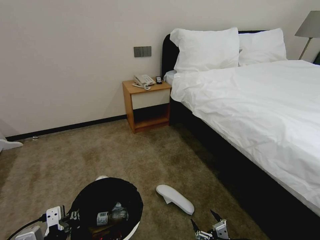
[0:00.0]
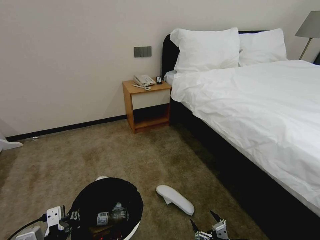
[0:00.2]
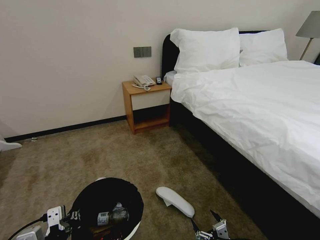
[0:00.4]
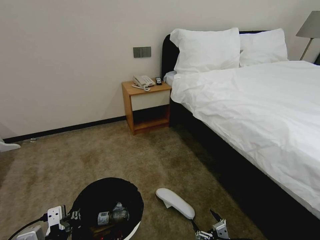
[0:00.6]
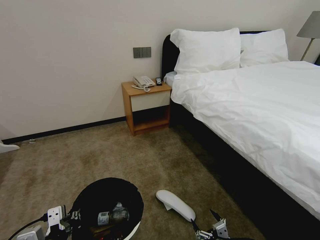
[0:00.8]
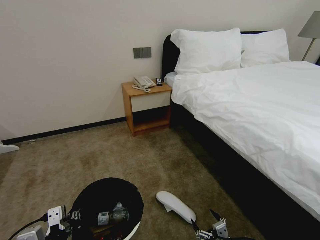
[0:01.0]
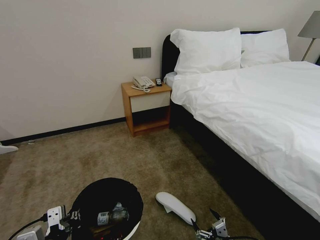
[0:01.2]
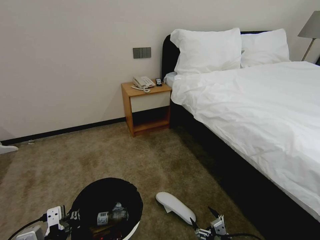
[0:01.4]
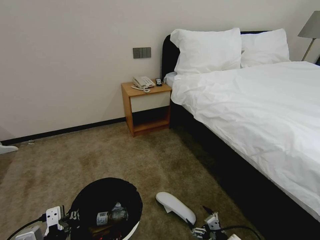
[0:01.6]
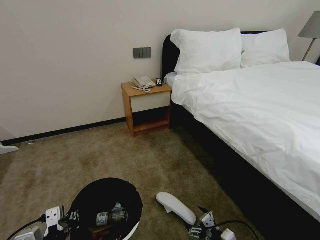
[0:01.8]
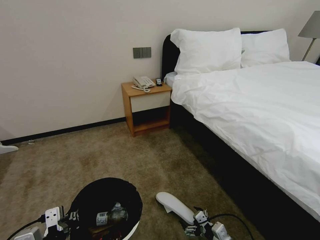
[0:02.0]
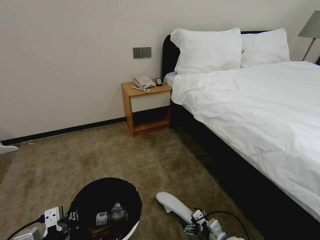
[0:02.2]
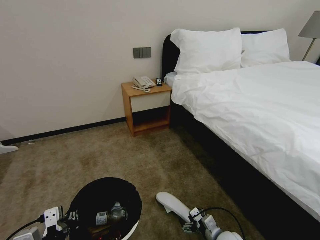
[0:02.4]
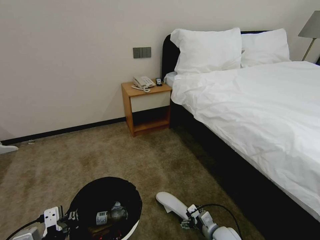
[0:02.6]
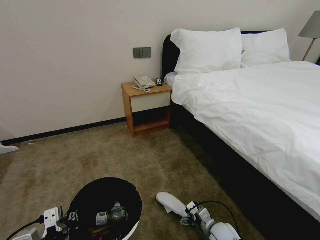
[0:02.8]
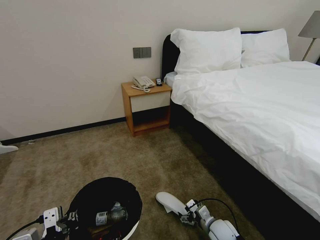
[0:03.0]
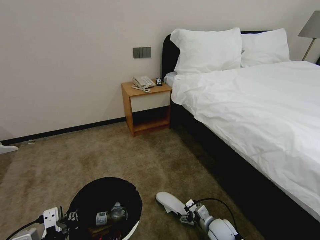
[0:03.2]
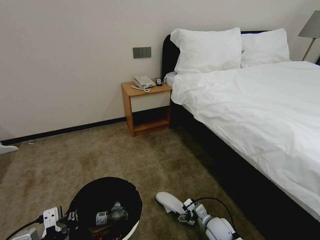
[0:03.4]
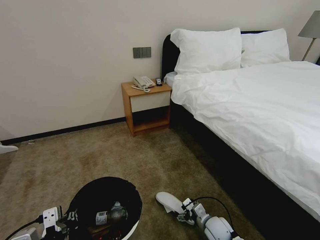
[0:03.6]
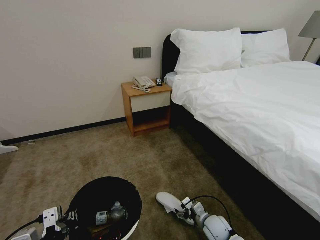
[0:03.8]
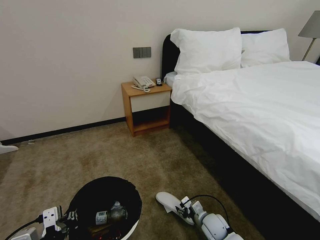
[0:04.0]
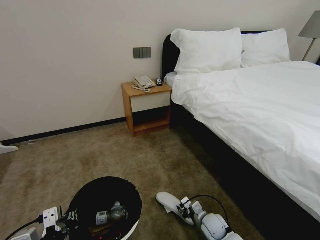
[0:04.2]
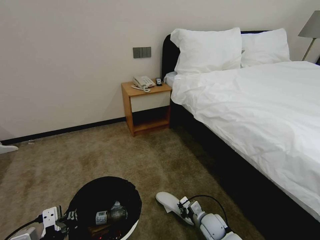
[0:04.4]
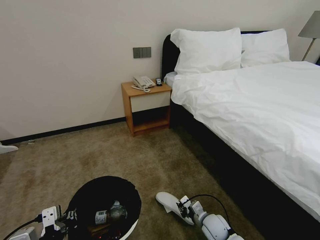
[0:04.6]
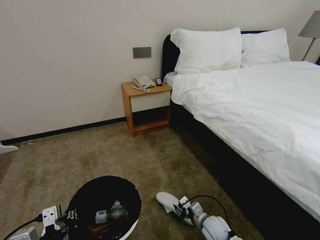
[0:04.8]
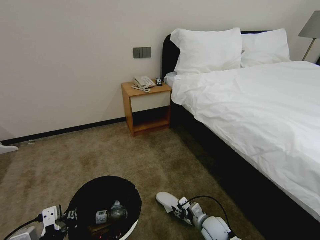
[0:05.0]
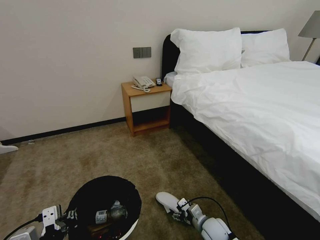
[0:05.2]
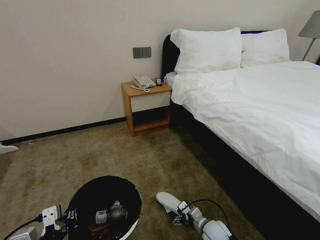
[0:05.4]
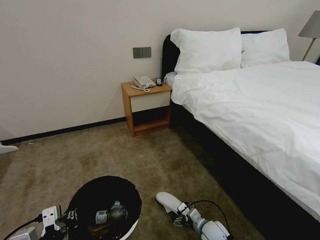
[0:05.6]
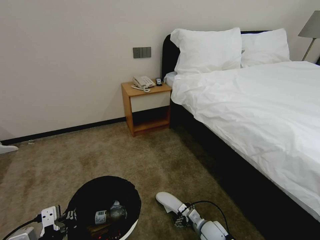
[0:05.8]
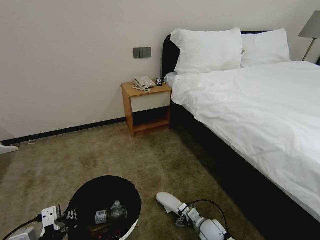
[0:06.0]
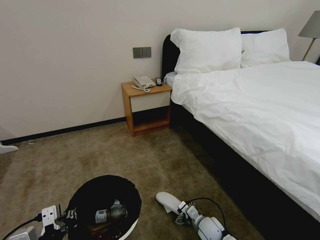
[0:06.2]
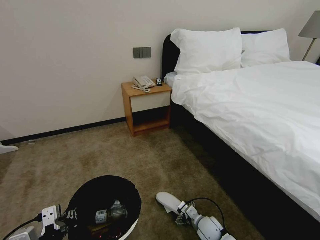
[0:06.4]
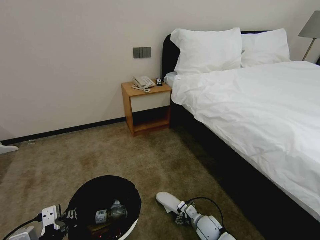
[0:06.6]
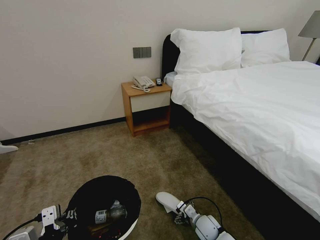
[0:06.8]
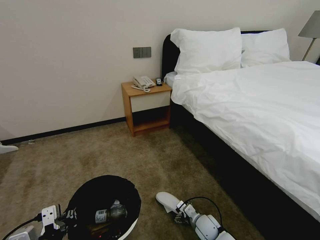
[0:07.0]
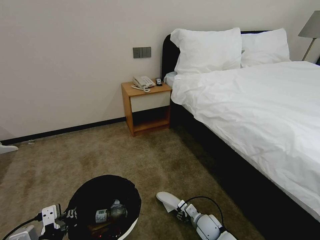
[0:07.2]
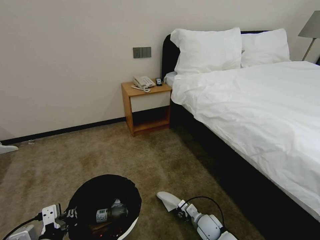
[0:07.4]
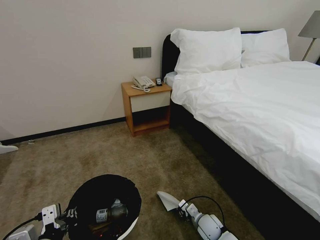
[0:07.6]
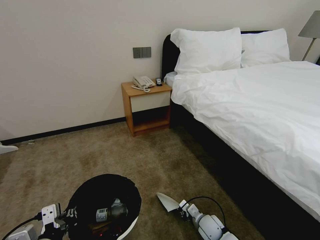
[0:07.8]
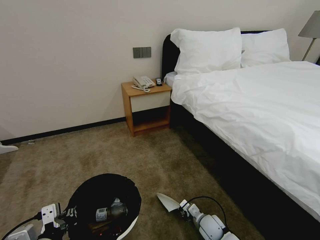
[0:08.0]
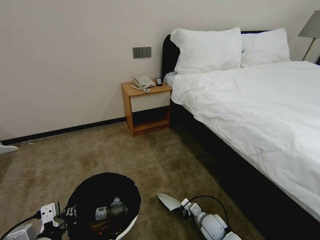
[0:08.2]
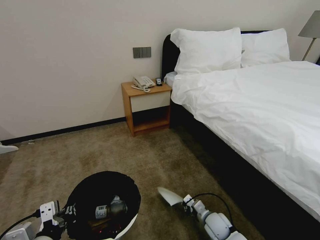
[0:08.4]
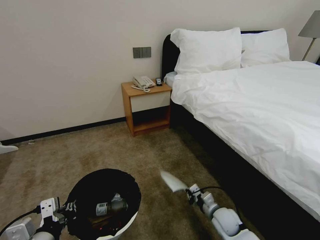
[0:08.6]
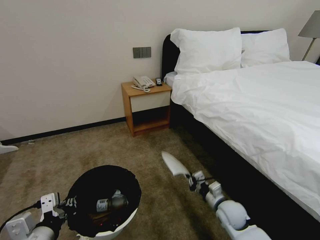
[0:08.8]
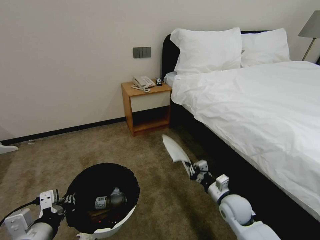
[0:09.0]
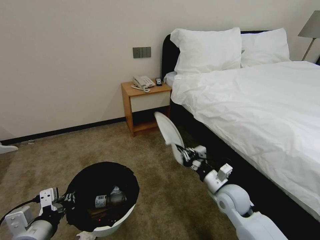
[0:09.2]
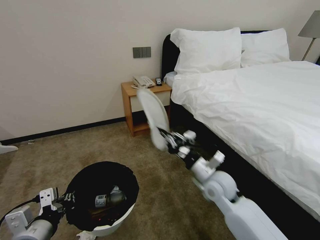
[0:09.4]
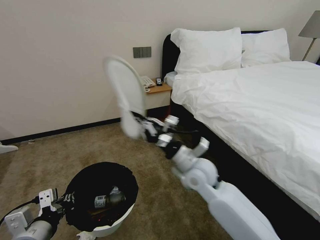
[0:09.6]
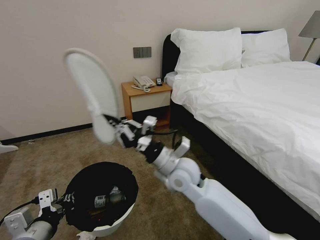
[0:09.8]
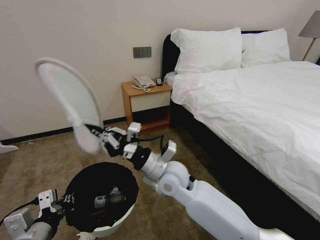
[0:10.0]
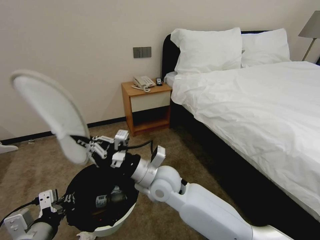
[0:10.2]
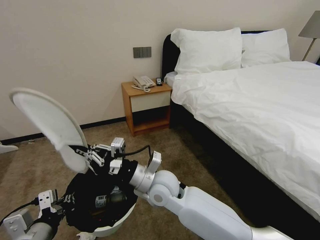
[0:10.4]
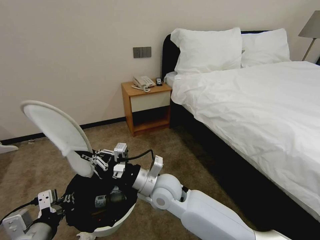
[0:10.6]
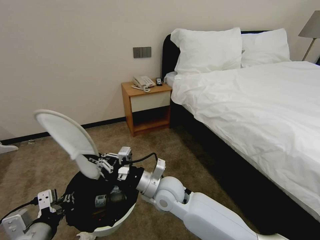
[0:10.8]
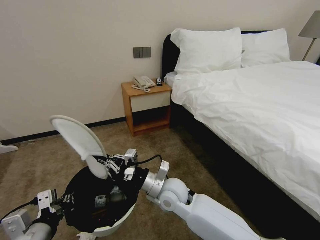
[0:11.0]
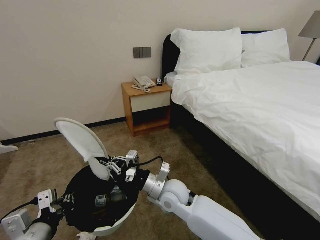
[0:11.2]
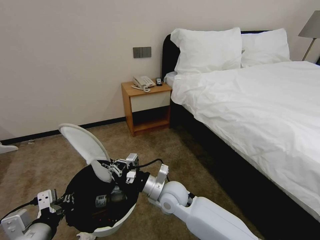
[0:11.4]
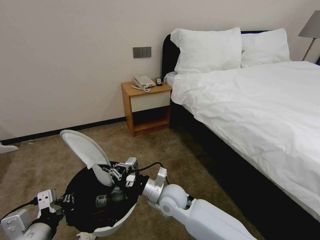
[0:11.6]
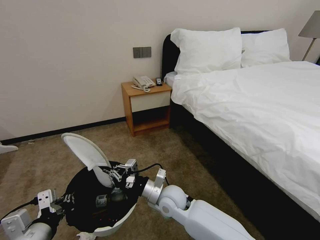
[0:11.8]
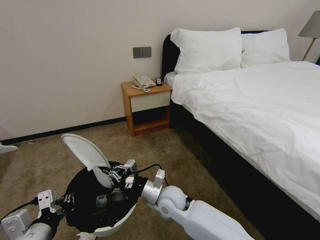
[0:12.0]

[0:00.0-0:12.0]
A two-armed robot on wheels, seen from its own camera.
Task of the whole recording: Pick up the trash bin, then pick up the garbage from the floor and place it into the trash bin.
0:00.0 to 0:01.6: The grippers make only small movements.
0:01.6 to 0:03.0: The right gripper travels forward by roughly 15 cm.
0:03.0 to 0:04.4: The right gripper closes.
0:04.4 to 0:06.0: The right gripper opens.
0:06.0 to 0:07.6: The right gripper closes up.
0:07.6 to 0:09.0: The right gripper is displaced upward by approximately 15 cm.
0:09.0 to 0:10.4: The right gripper moves to the left and upward, roughly 30 cm.
0:10.4 to 0:12.0: The right gripper moves downward, about 10 cm.

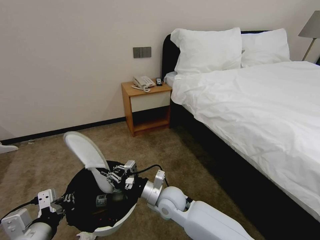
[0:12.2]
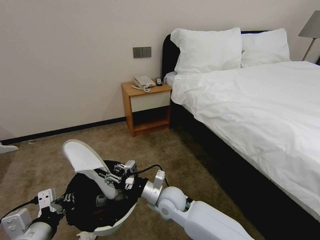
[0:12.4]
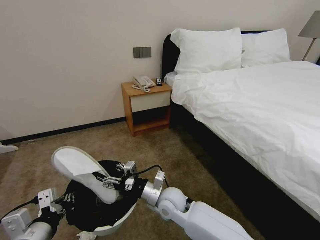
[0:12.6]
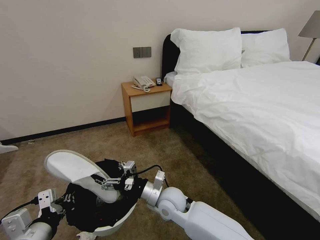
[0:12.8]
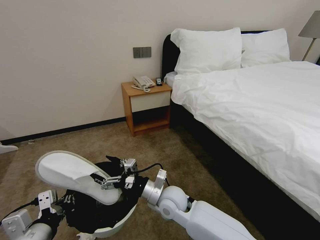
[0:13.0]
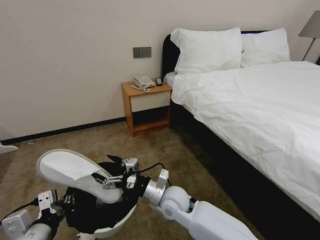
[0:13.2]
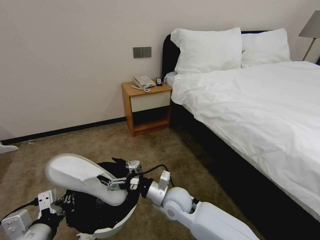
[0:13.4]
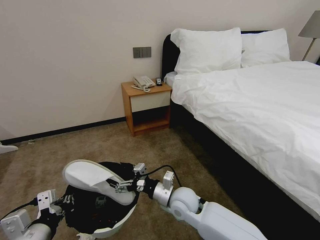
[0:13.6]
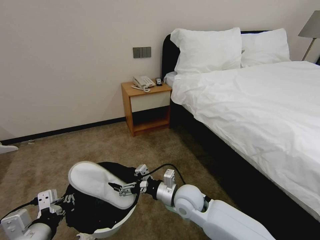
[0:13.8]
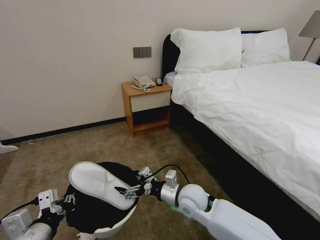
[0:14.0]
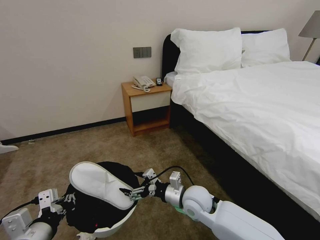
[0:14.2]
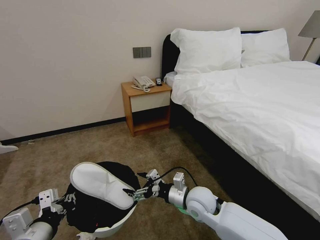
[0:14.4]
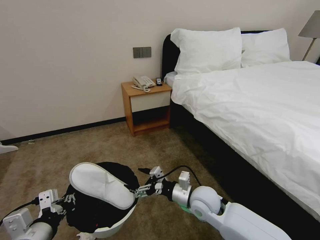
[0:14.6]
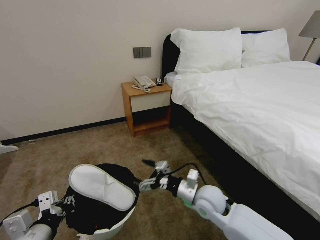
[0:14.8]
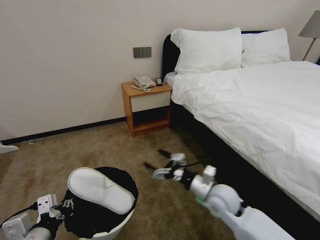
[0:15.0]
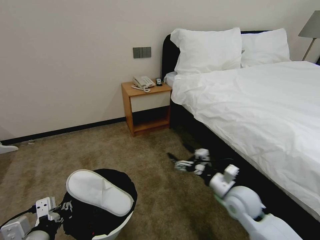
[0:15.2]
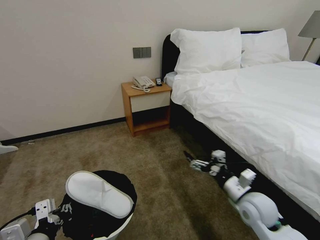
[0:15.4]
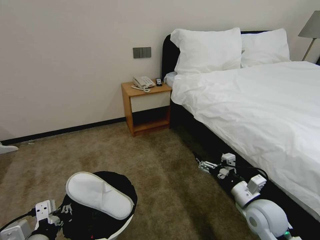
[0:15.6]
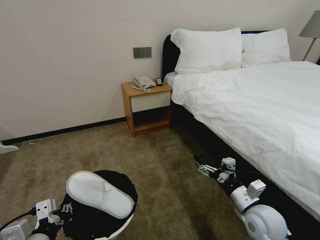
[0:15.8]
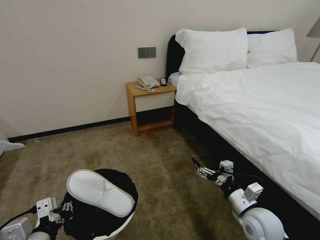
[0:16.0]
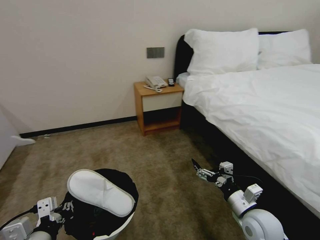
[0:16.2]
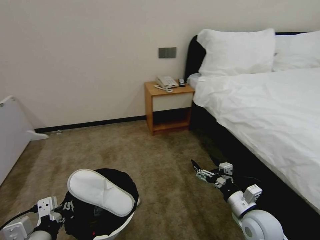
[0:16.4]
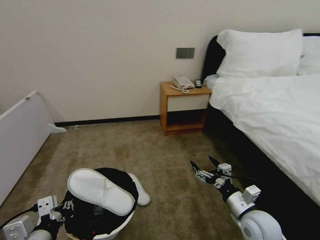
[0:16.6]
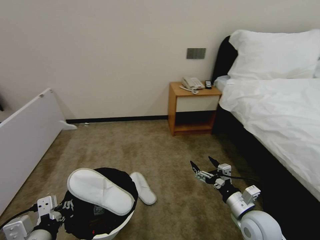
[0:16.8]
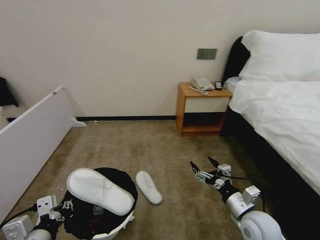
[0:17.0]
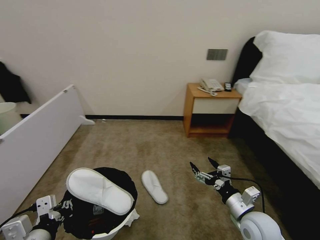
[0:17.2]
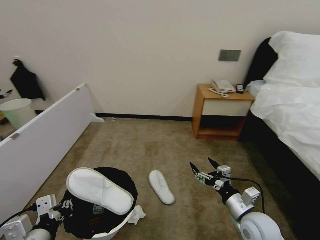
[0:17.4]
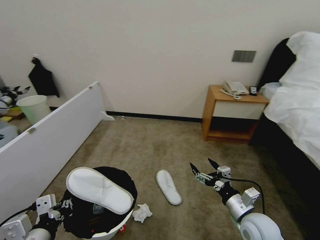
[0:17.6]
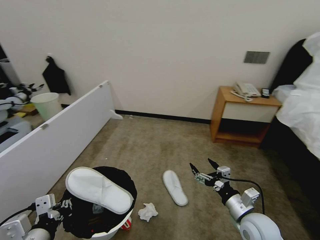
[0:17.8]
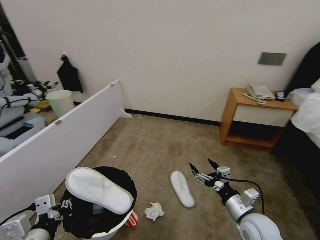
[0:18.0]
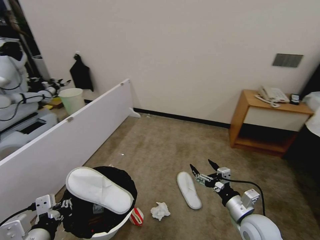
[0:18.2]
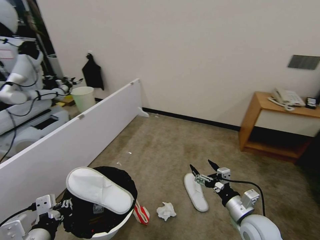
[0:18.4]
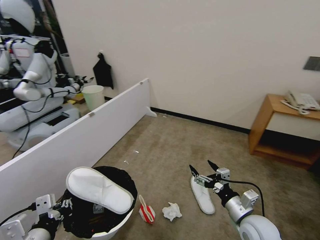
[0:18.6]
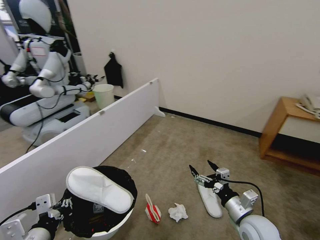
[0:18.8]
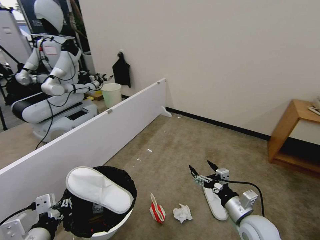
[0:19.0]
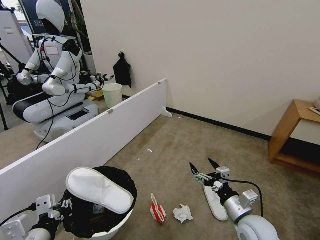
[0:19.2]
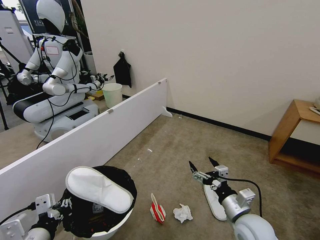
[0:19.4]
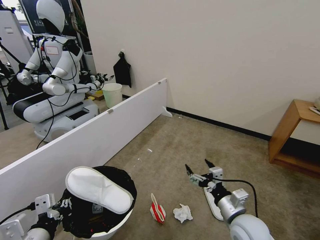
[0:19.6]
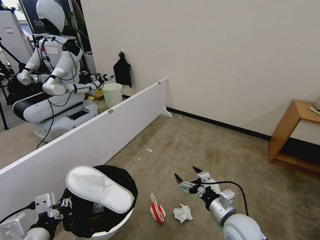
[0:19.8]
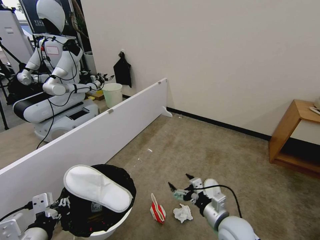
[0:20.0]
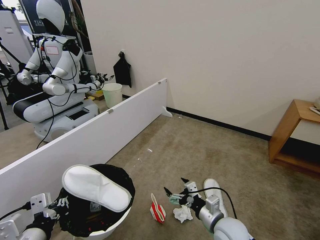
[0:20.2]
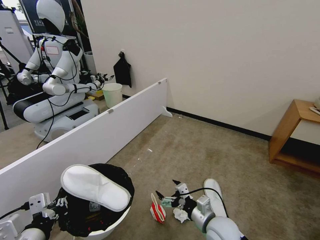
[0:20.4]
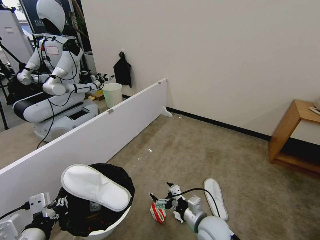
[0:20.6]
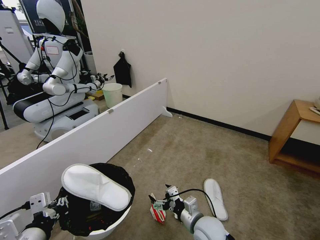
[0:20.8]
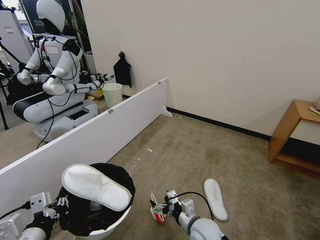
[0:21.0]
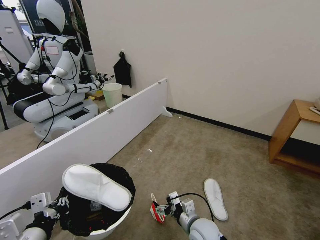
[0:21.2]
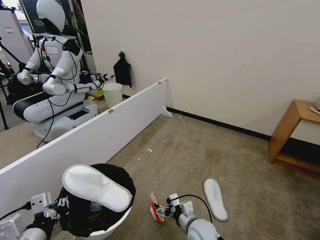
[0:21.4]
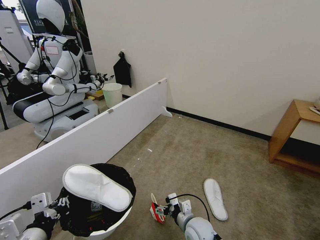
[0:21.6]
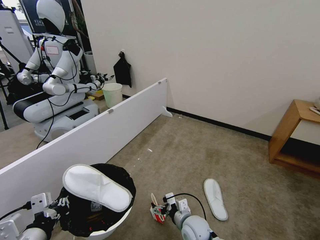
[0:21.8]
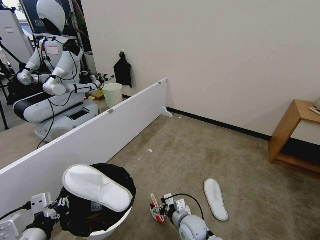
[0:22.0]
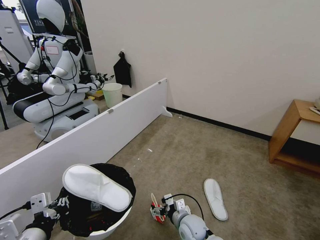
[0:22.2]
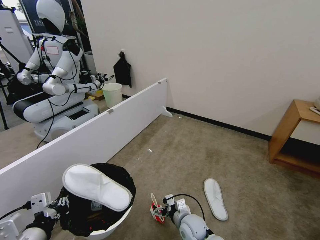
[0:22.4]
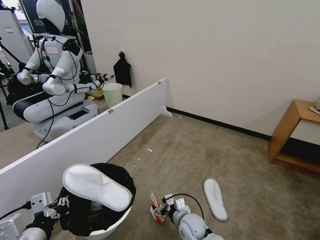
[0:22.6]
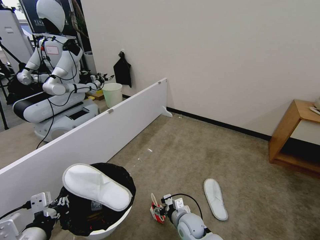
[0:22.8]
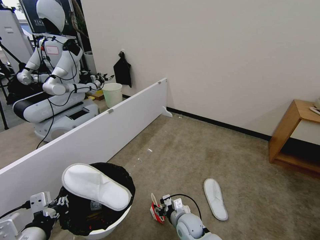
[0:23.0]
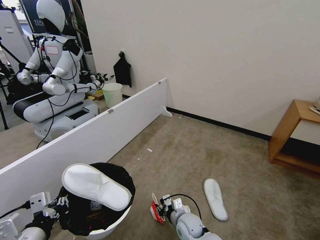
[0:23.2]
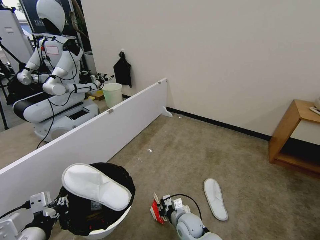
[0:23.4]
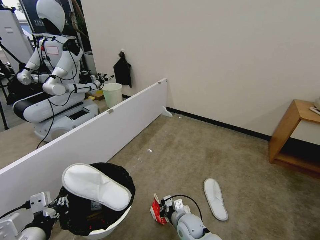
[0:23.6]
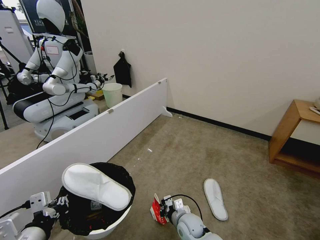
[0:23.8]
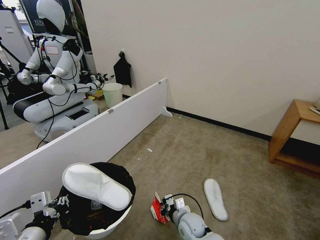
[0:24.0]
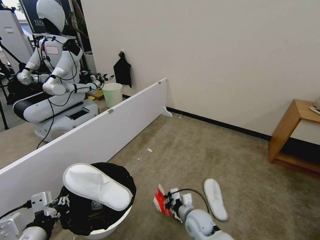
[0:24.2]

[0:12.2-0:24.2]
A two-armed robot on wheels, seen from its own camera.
Task of the whole recording: Pick up the trash bin, then pick up the garbage from the floor and place it into the trash bin.
0:12.2 to 0:13.8: The right gripper goes approximately 5 cm to the right, and opens.
0:13.8 to 0:15.2: The right gripper shifts about 15 cm to the right.
0:15.2 to 0:16.6: The right gripper moves backward, approximately 5 cm.
0:19.8 to 0:21.2: The right gripper shifts approximately 10 cm to the left and downward.
0:21.2 to 0:22.6: The right gripper goes approximately 5 cm downward.
0:22.6 to 0:24.2: The right gripper closes.
